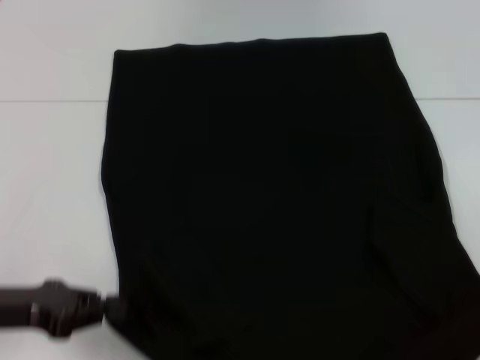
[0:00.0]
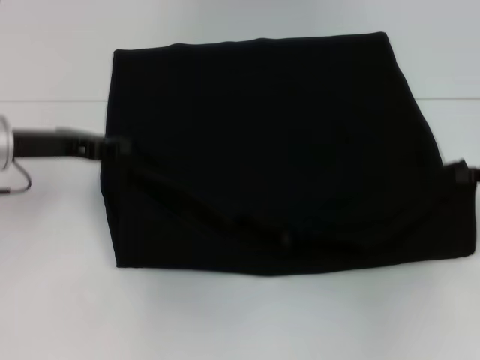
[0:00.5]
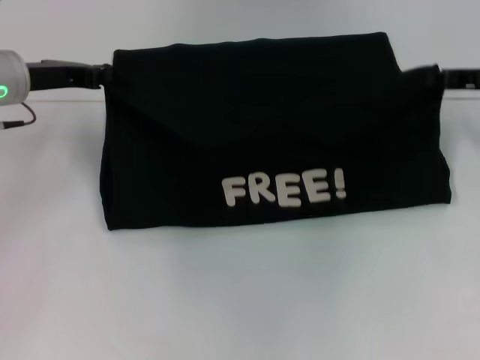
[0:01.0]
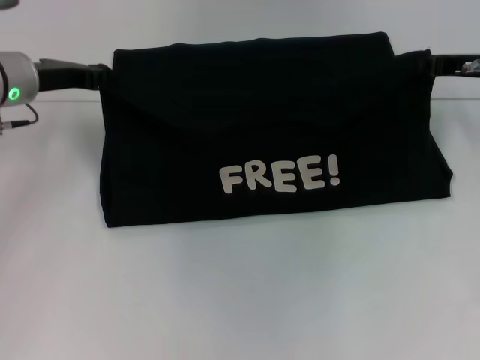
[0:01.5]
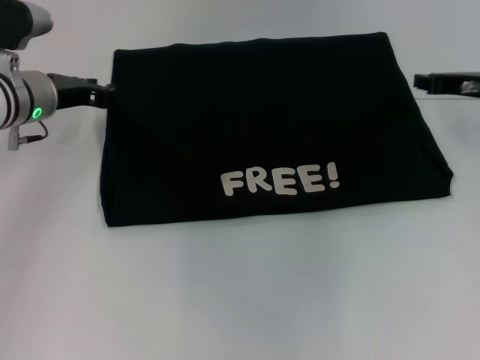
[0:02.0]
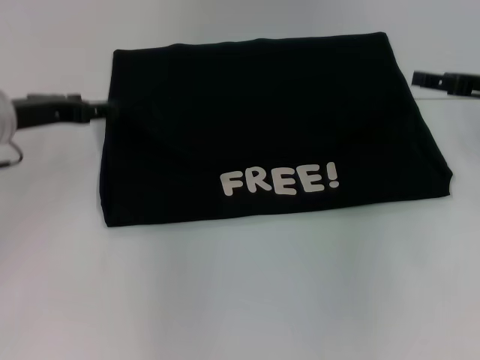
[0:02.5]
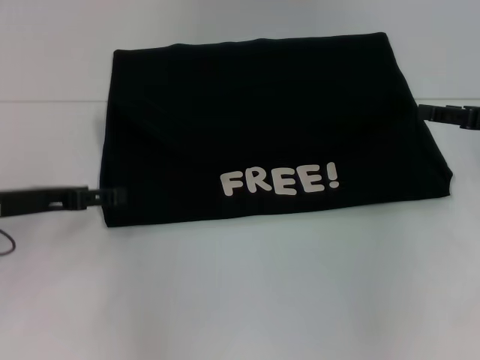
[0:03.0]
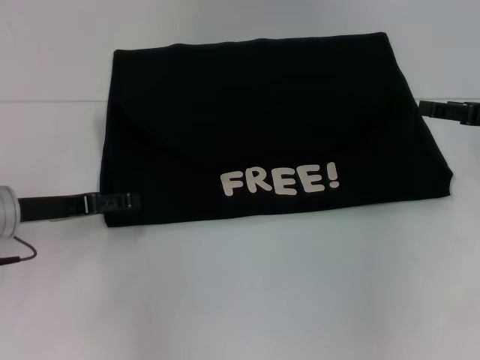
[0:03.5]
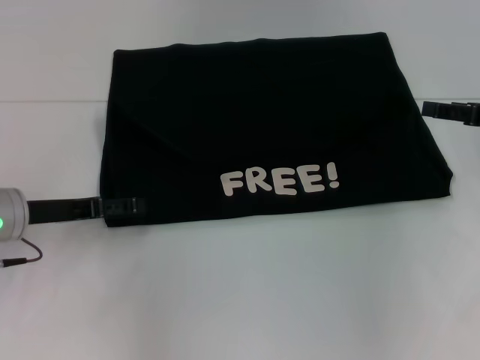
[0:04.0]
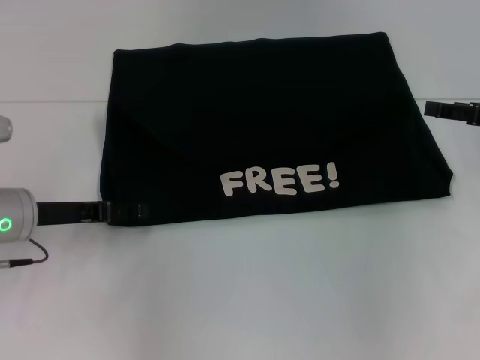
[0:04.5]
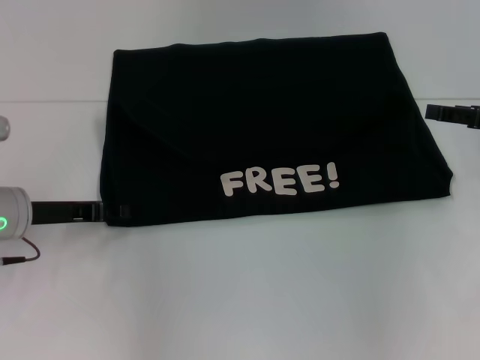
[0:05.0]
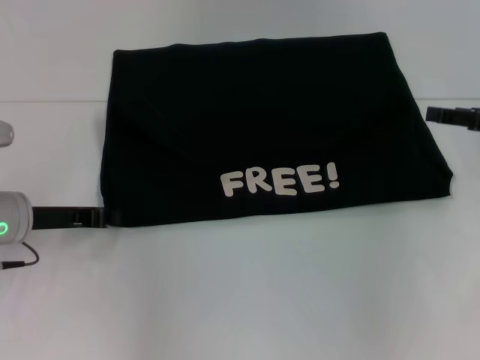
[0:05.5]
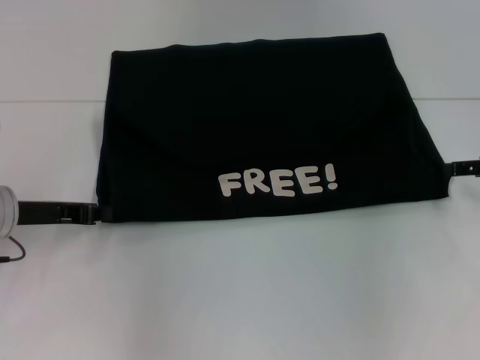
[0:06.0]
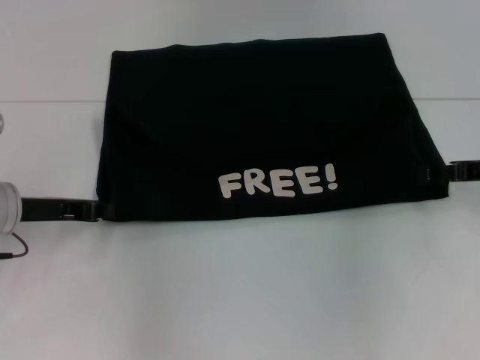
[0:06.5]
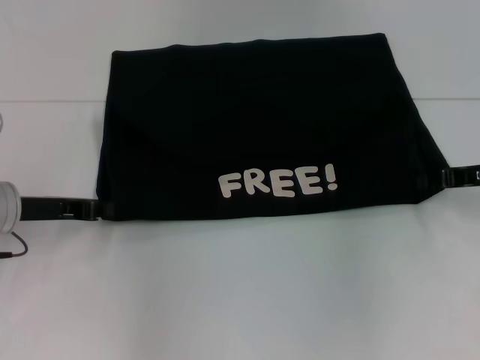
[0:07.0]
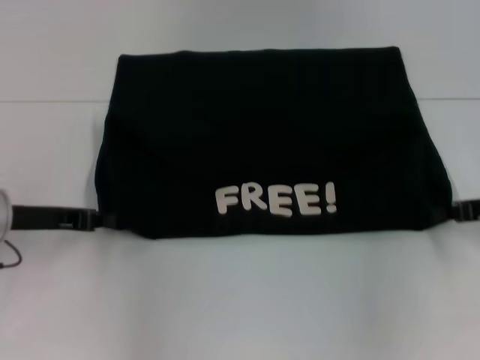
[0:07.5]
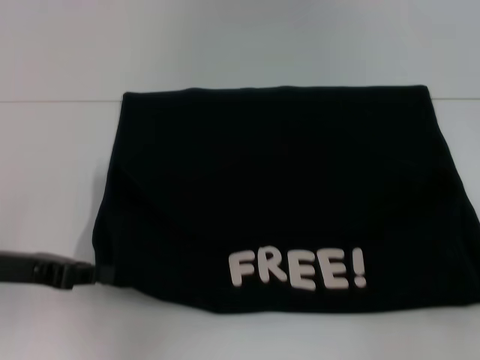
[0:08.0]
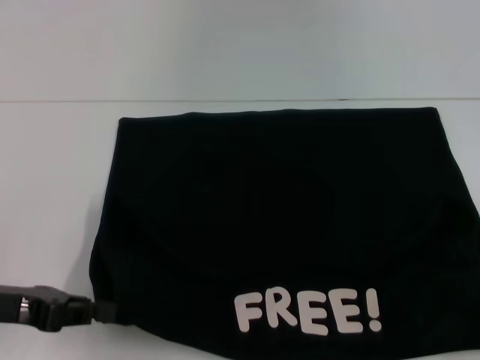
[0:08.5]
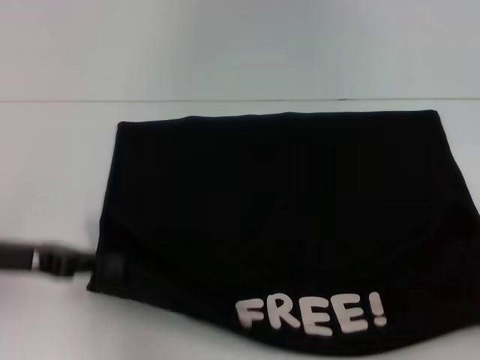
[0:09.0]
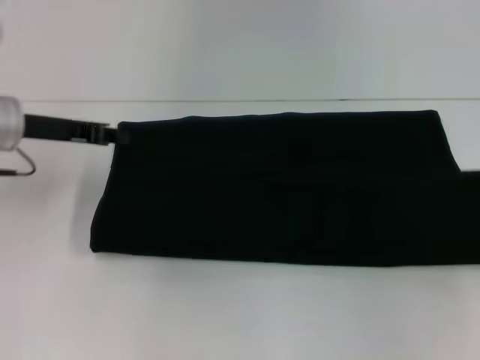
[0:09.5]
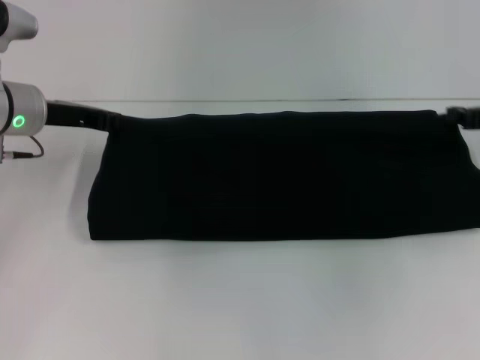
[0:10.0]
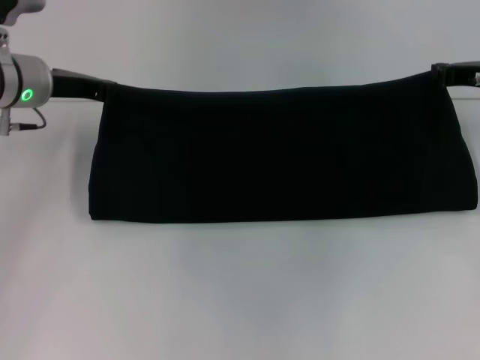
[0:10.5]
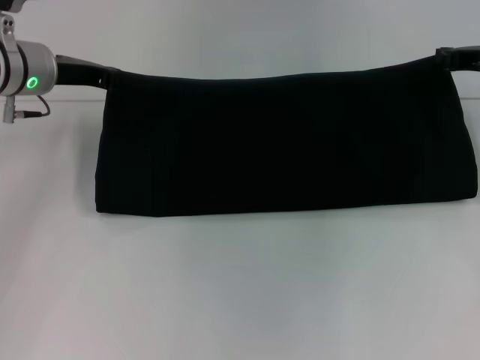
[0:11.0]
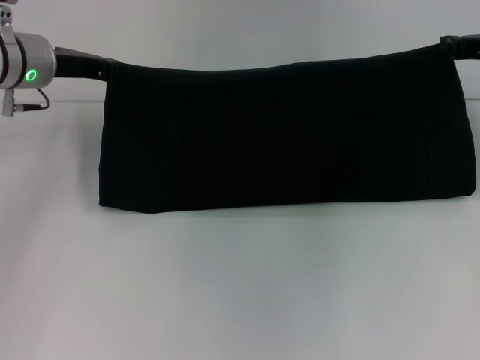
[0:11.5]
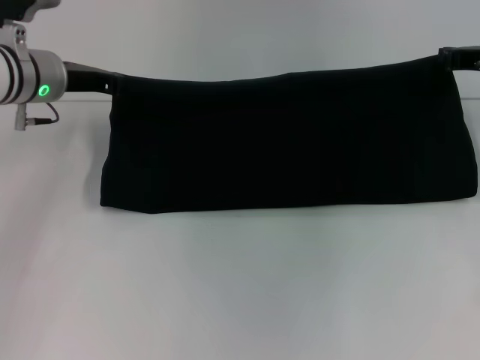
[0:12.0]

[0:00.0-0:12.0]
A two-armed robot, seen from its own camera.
Step, 0:02.0 to 0:08.5: Pull the clothes with your left hand.
Step, 0:02.0 to 0:08.5: Pull the clothes with your right hand.
0:00.0 to 0:02.0: The right gripper moves forward and to the left, approximately 25 cm. The left gripper is displaced forward by roughly 20 cm.
0:02.0 to 0:04.0: The right gripper travels backward by about 5 cm, and opens up. Meanwhile the left gripper goes some 10 cm backward, and opens its fingers.
0:04.0 to 0:06.0: The left gripper closes up.
0:06.0 to 0:08.0: The right gripper travels backward by some 10 cm, and closes; the left gripper travels backward by about 5 cm.
0:08.0 to 0:10.0: Both grippers travel together forward, roughly 15 cm.
0:10.0 to 0:12.0: The right gripper changes place by about 5 cm.

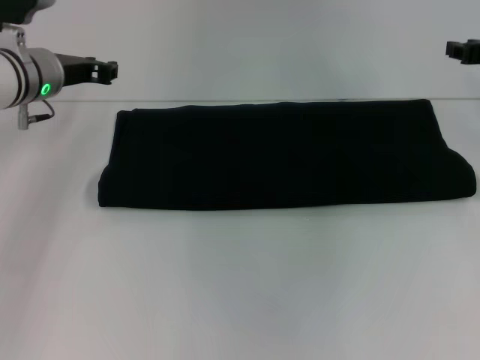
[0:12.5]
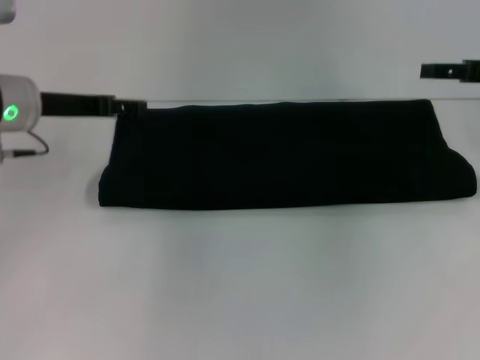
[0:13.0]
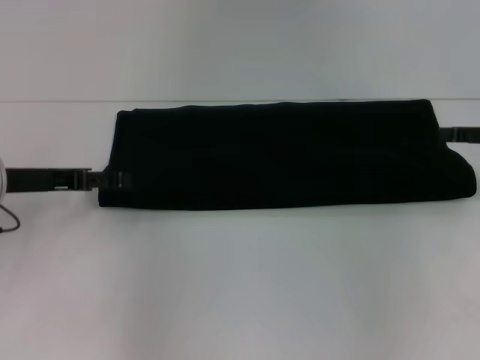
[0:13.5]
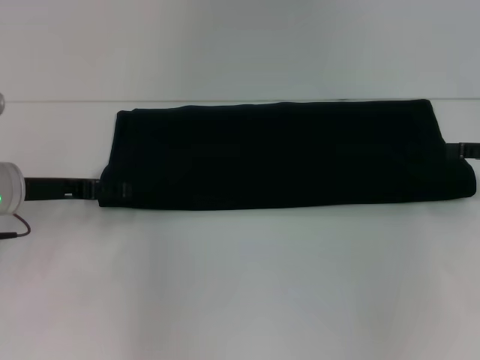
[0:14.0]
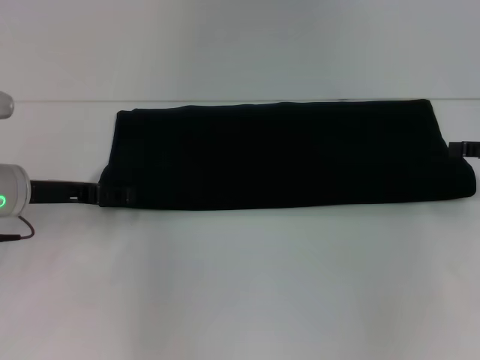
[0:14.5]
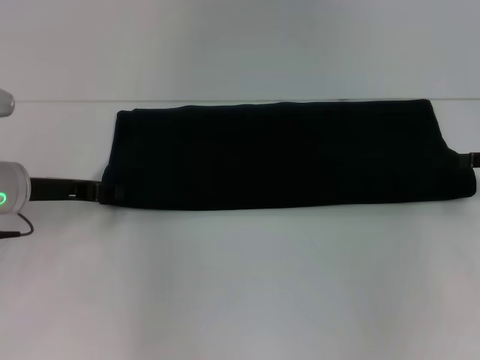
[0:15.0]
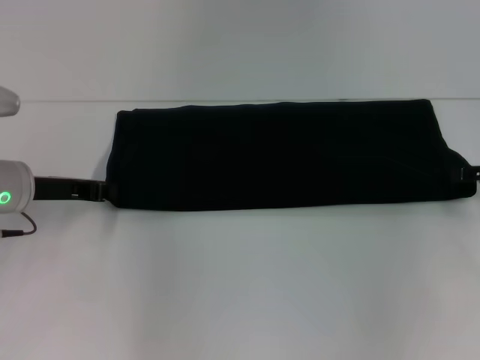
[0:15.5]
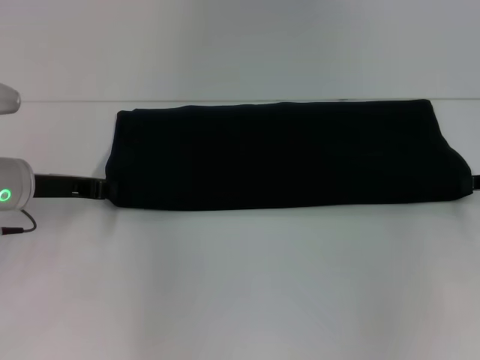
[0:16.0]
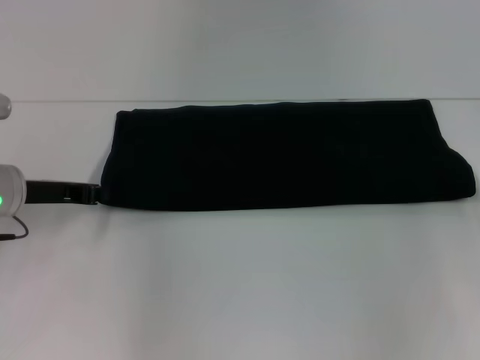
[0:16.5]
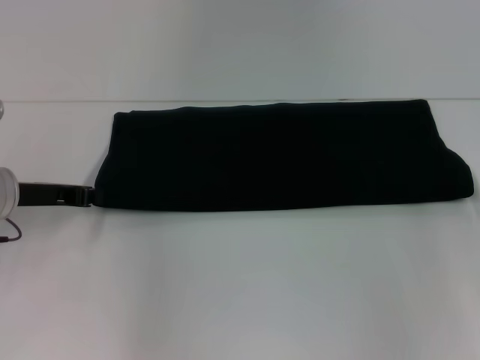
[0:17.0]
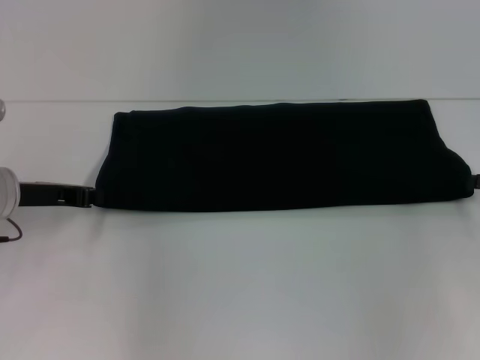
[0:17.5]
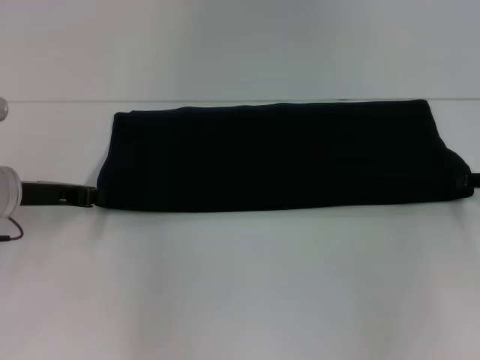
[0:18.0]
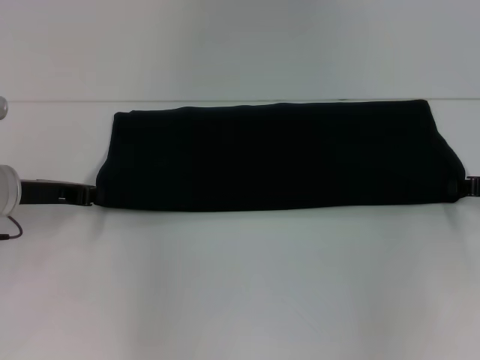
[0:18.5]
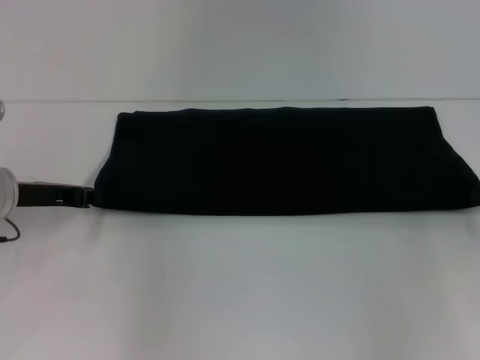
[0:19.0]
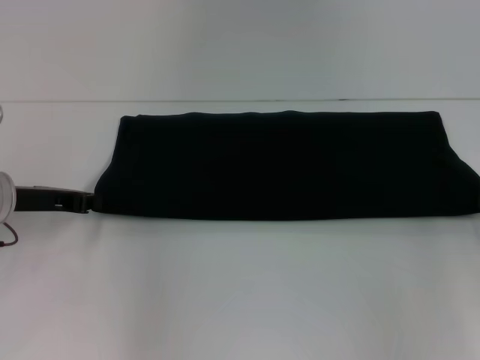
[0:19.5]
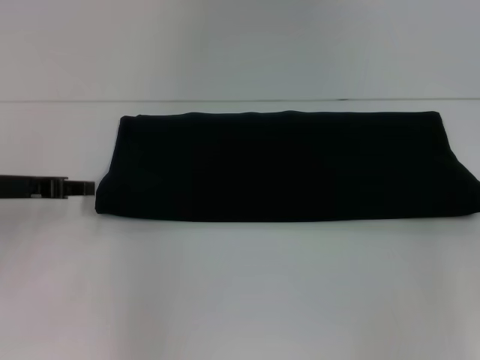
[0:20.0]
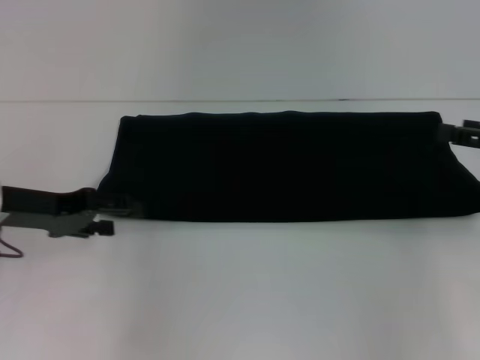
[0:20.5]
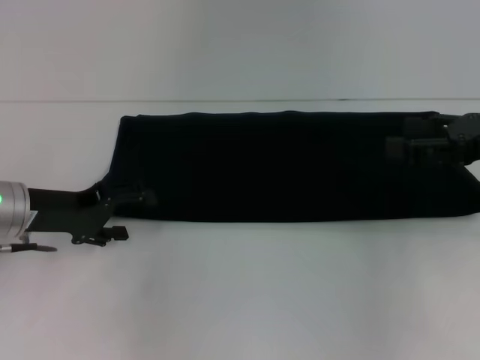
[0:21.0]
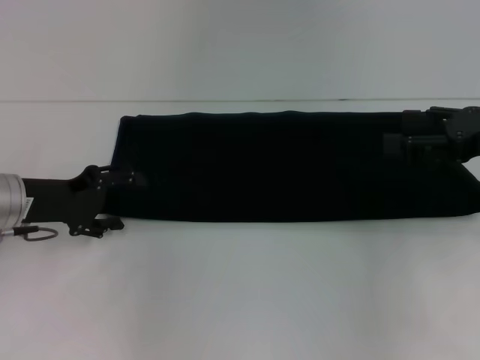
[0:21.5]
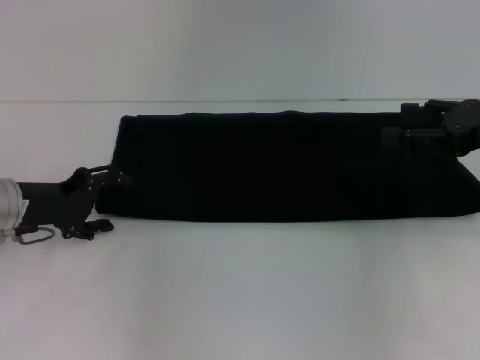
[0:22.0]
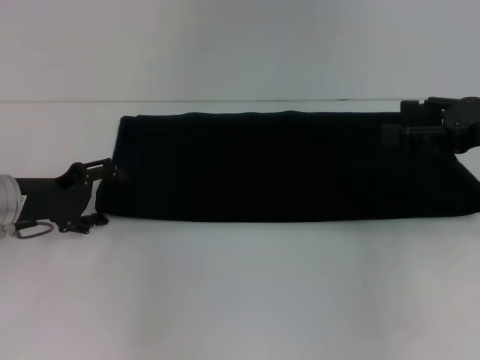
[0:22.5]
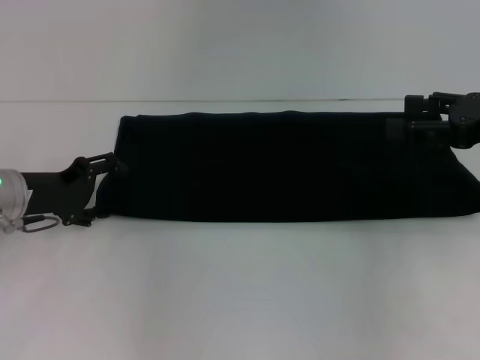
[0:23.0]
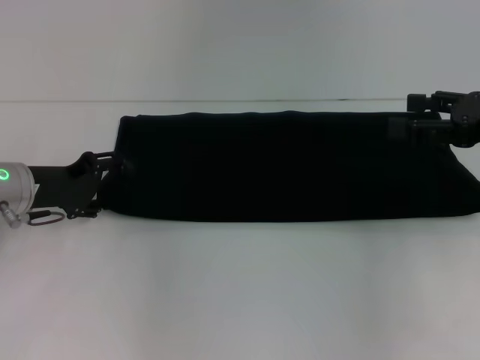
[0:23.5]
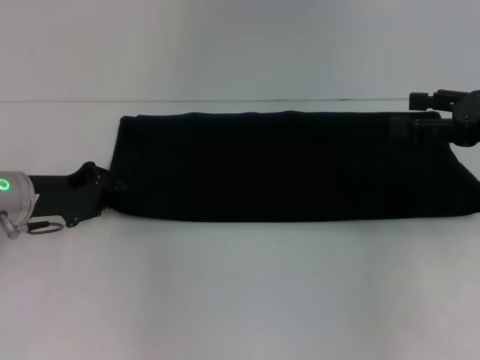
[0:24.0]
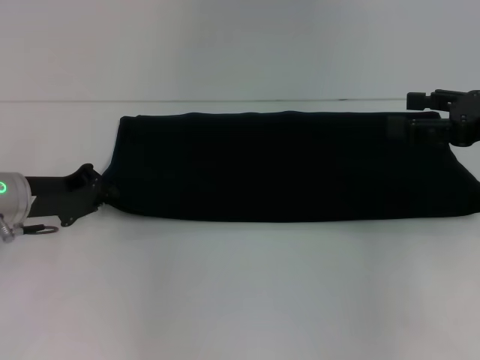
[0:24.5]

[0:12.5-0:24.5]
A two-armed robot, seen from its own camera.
0:12.5 to 0:14.5: The right gripper travels backward and to the right by some 10 cm, and opens up; the left gripper shifts about 10 cm backward and downward, and opens its fingers.
0:14.5 to 0:16.5: The left gripper closes.
0:16.5 to 0:18.5: There are only small adjustments of the grippers.
0:18.5 to 0:20.5: The right gripper moves upward, roughly 5 cm, and opens; the left gripper opens up.
0:20.5 to 0:22.5: The right gripper changes place by roughly 5 cm, and opens its fingers. Meanwhile the left gripper shifts by approximately 5 cm.
0:22.5 to 0:24.5: The left gripper closes.

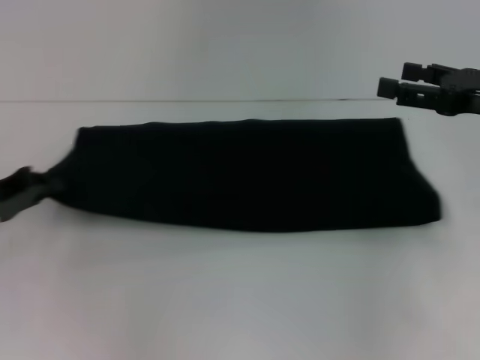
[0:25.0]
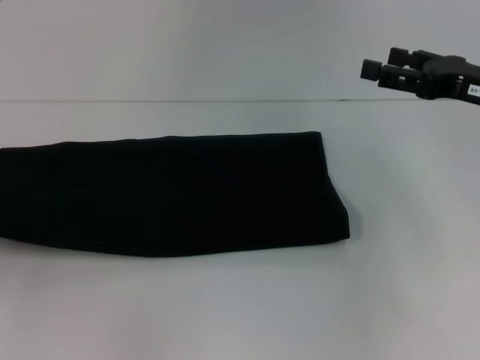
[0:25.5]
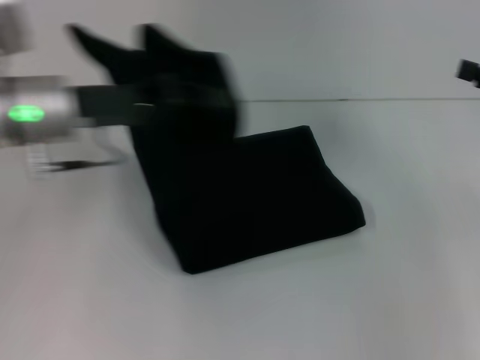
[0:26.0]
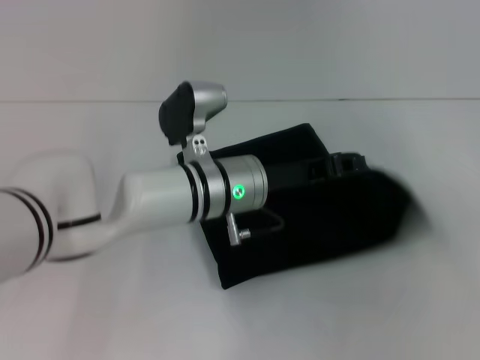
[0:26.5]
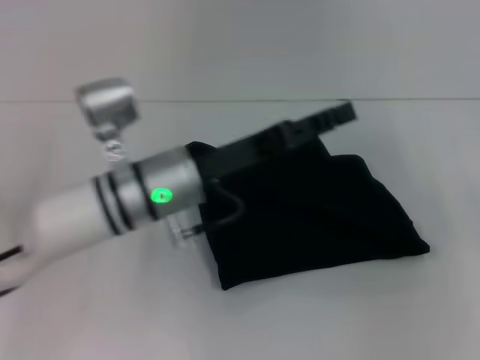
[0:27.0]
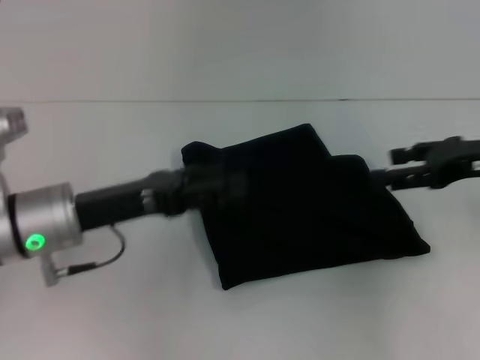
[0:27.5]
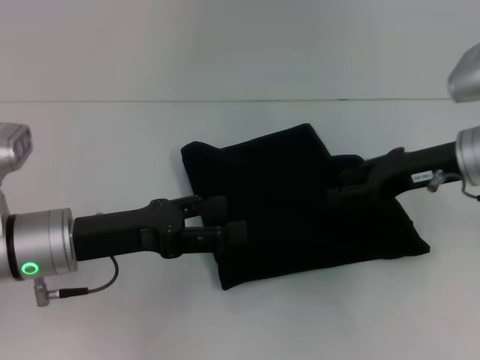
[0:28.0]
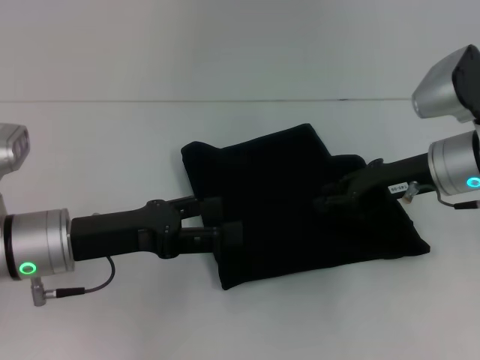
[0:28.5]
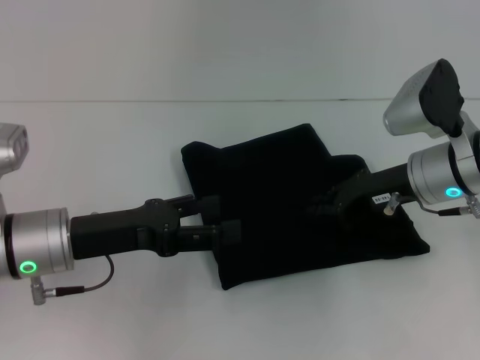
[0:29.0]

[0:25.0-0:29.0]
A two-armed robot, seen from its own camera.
0:25.0 to 0:27.0: The left gripper swings left and right, some 40 cm each way, with 2 reversals, and opens its fingers; the right gripper heads to the right, covering approximately 10 cm.
0:27.0 to 0:29.0: The right gripper shifts some 20 cm to the left, and closes up, while the left gripper is displaced to the left by some 10 cm, and opens up.
